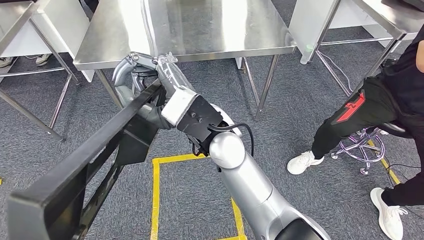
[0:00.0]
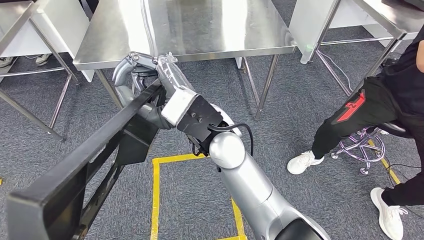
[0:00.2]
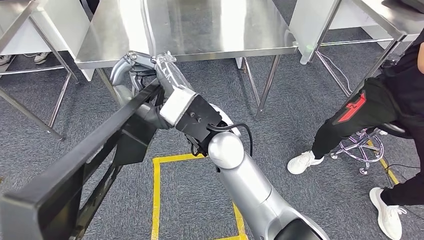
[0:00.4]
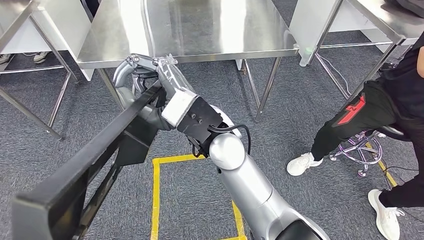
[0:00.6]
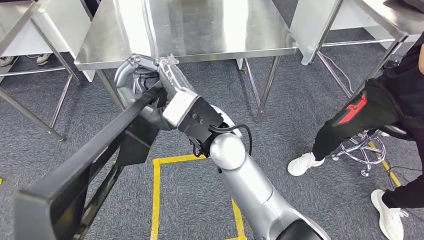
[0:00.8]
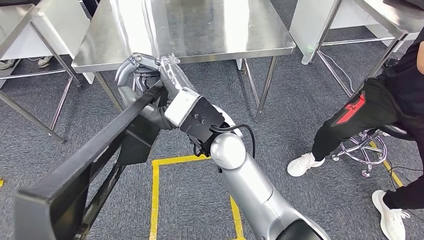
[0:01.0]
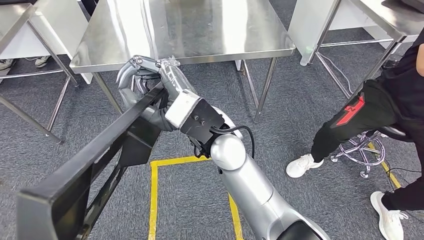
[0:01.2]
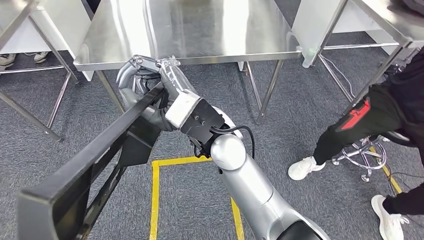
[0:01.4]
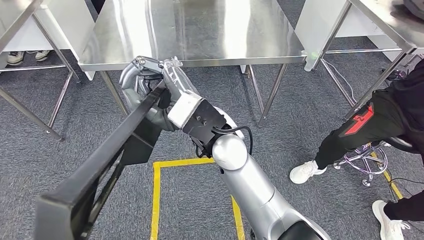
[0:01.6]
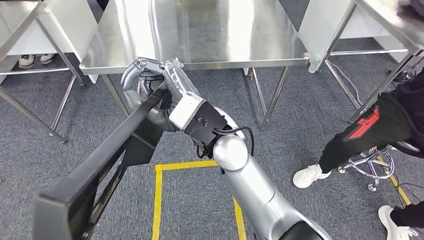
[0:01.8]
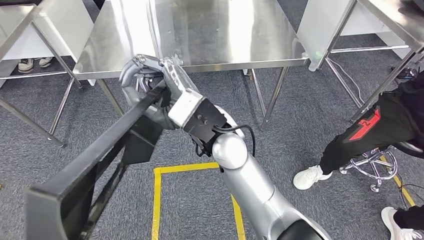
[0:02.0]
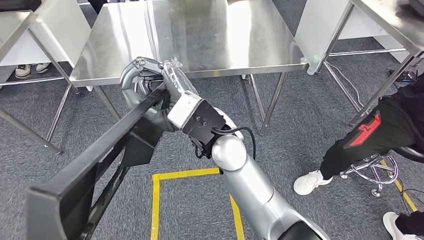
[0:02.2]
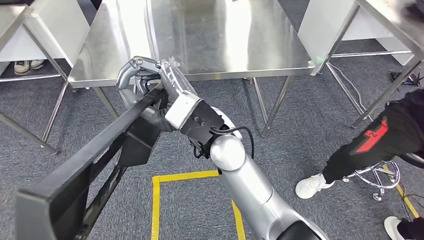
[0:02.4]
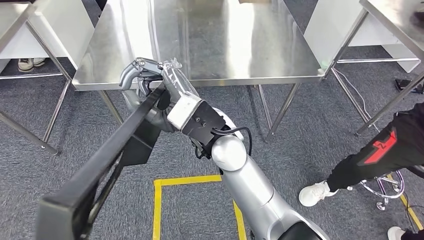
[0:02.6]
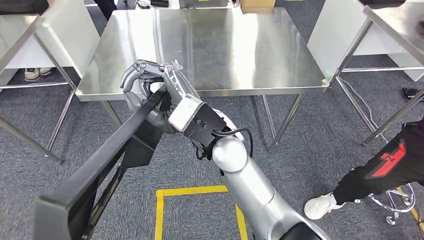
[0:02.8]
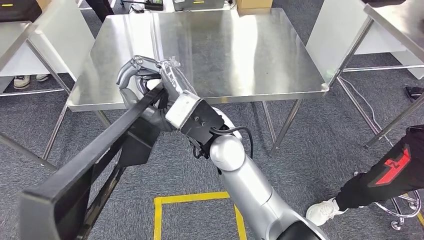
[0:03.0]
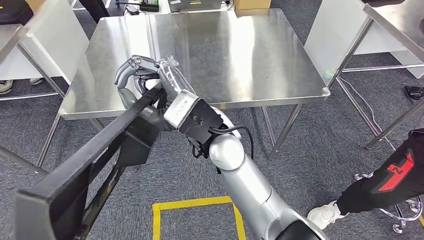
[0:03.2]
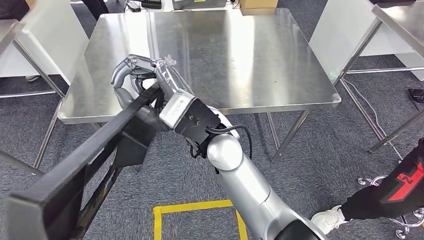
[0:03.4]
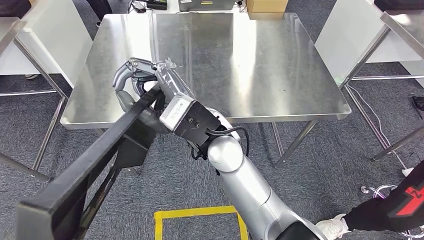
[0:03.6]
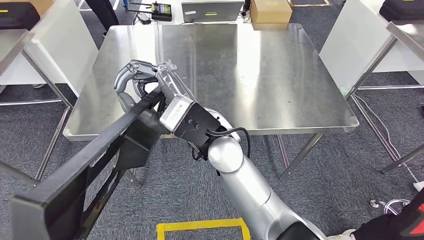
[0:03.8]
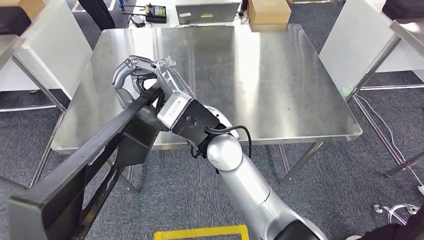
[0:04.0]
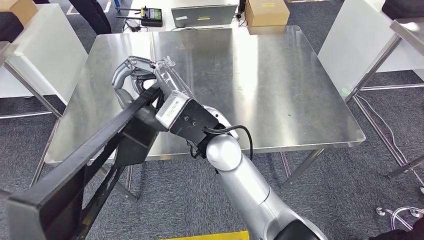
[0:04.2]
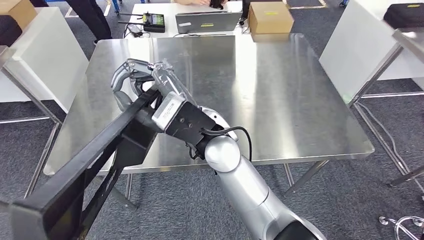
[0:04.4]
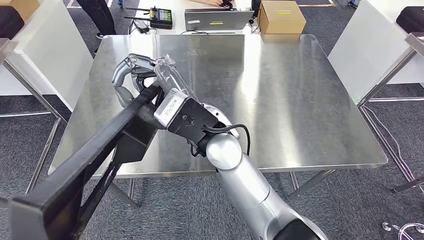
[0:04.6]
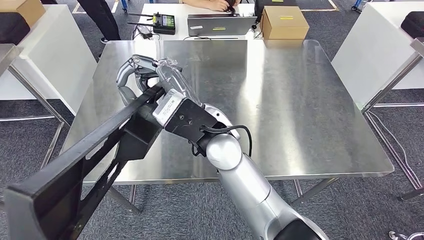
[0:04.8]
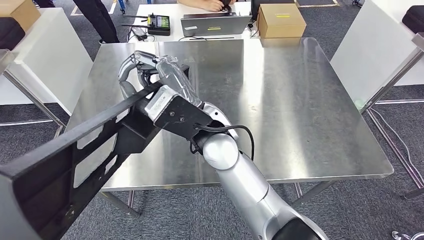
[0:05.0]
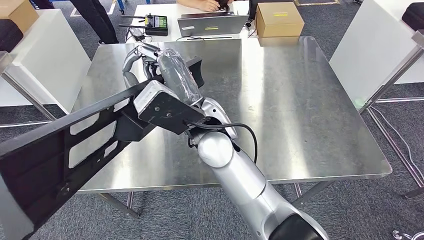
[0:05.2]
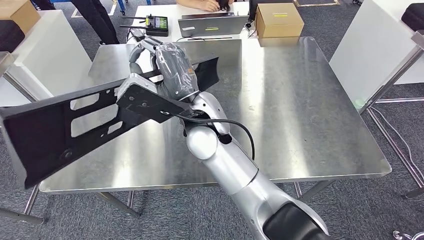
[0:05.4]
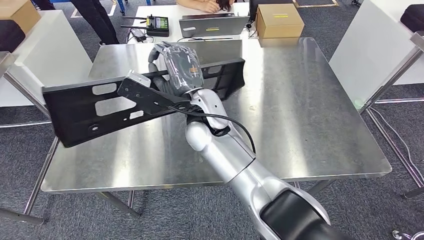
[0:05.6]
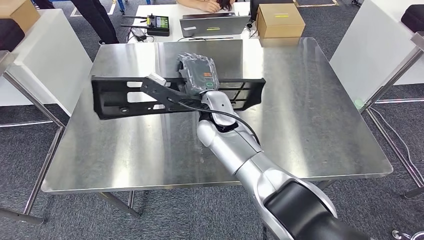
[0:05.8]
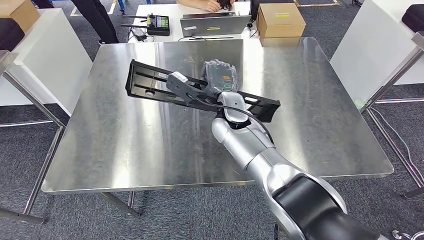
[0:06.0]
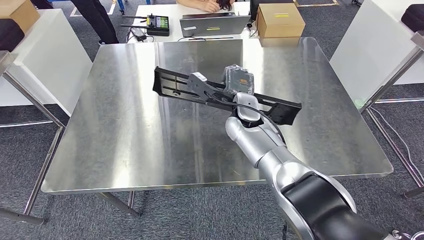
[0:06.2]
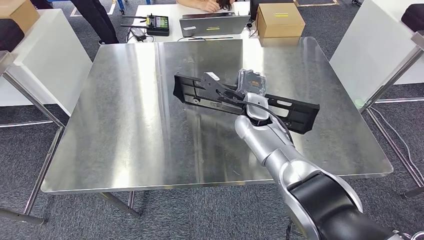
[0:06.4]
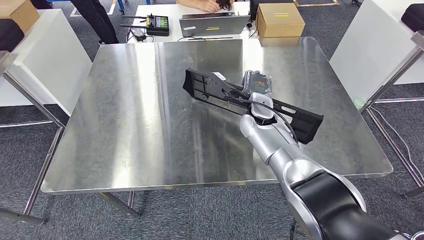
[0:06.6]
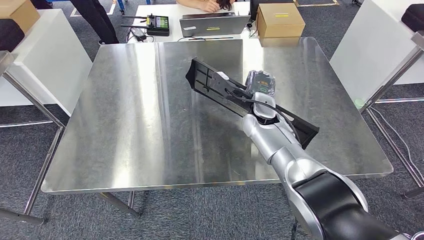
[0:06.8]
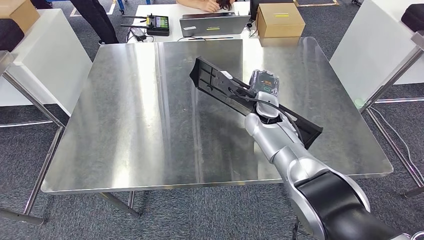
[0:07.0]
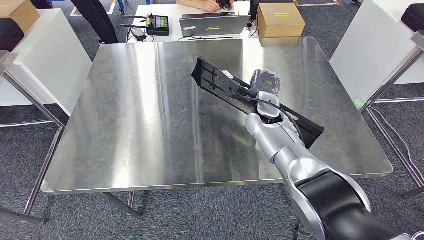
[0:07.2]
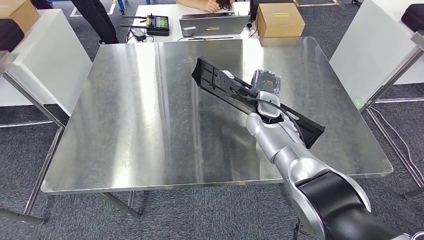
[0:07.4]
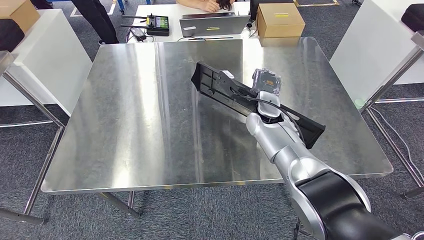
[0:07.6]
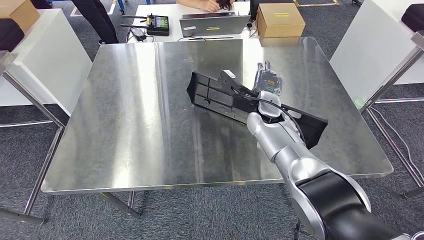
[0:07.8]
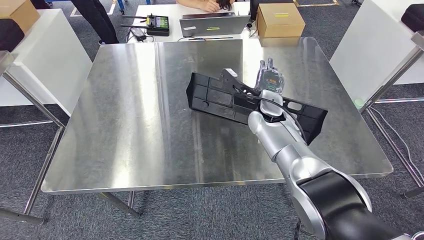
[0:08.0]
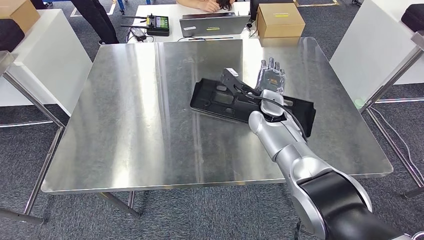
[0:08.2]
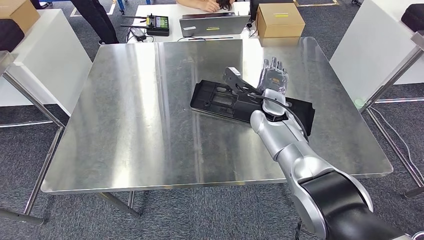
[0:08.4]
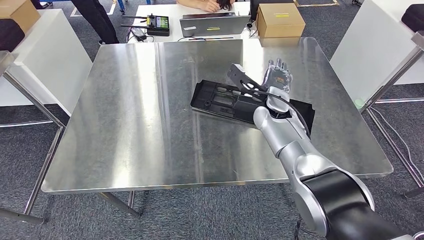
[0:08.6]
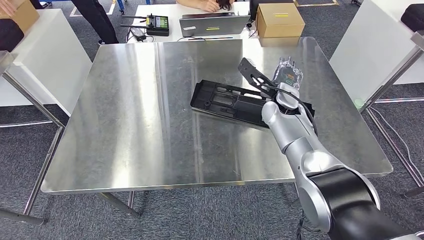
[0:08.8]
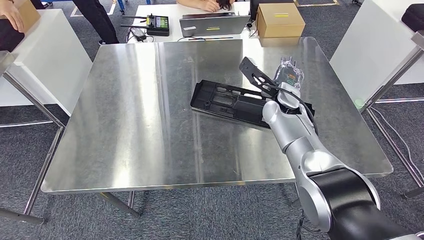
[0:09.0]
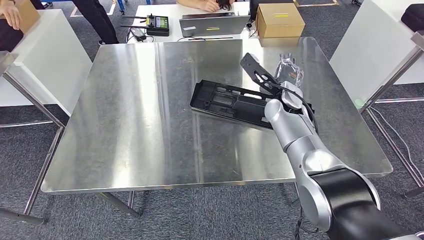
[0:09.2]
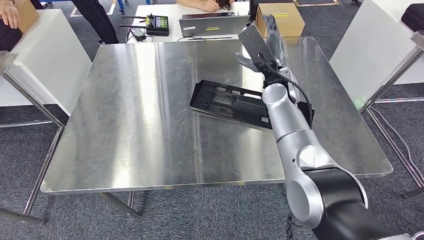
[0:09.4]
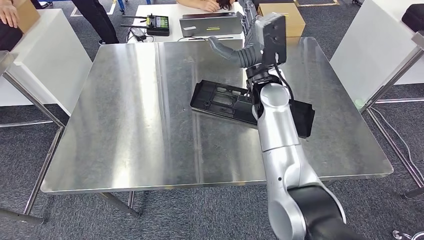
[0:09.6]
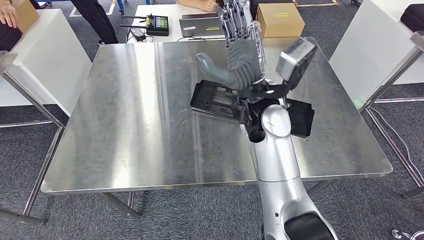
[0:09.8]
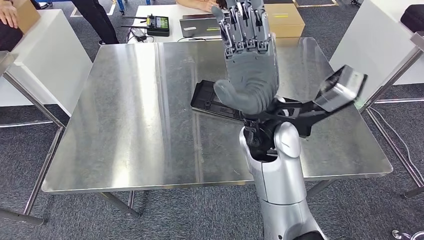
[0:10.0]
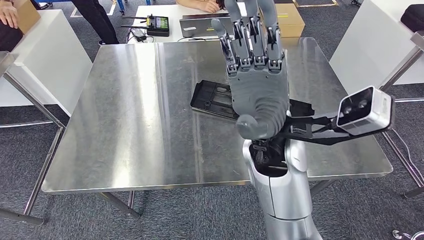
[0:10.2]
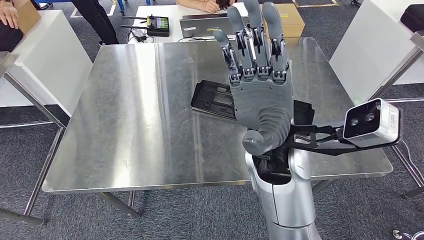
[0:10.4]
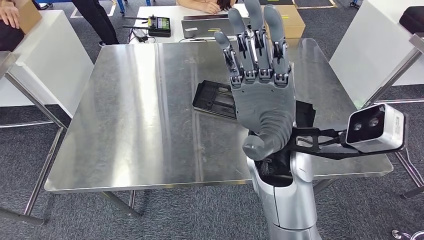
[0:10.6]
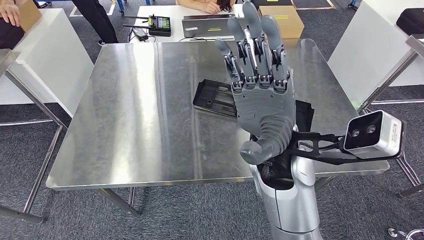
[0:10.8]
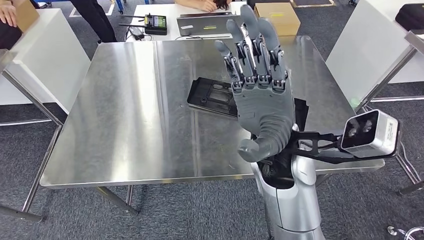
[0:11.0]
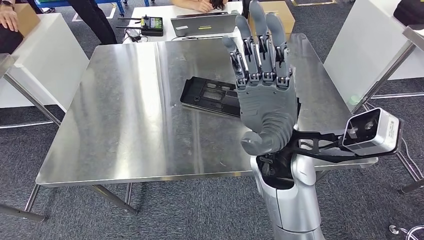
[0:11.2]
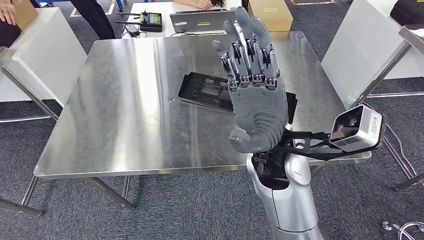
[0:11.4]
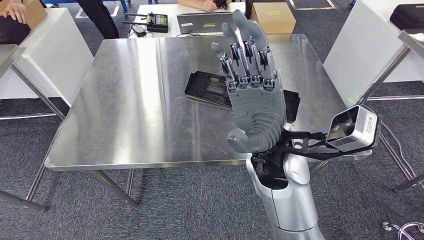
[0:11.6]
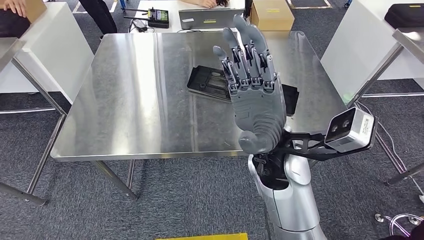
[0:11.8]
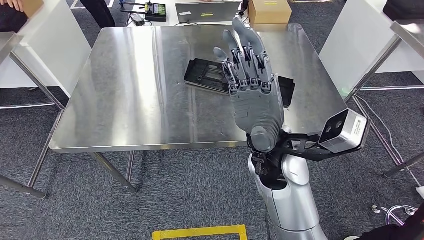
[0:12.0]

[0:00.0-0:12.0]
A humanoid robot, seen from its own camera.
0:06.0 to 0:07.6: The right hand travels to the right by about 10 cm.
0:07.6 to 0:09.0: There are only small adjustments of the hands.

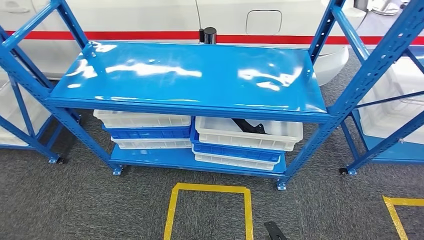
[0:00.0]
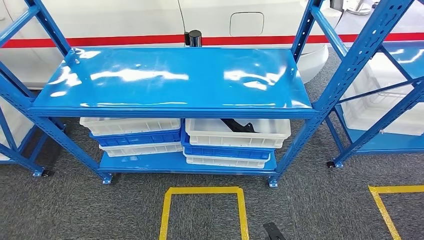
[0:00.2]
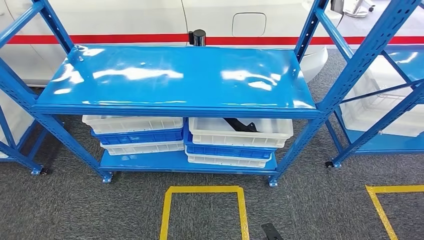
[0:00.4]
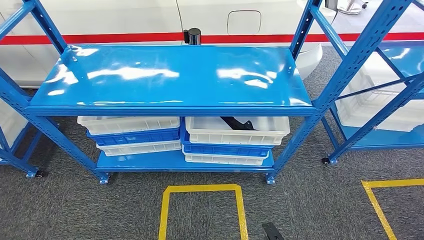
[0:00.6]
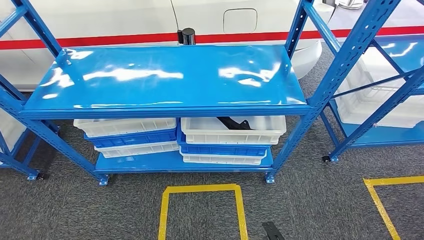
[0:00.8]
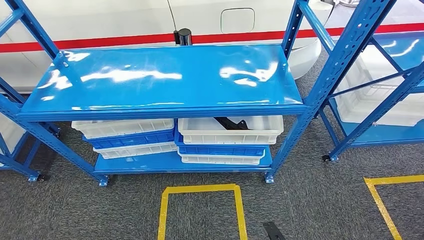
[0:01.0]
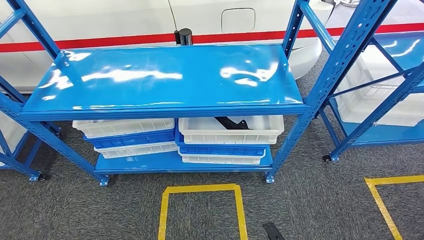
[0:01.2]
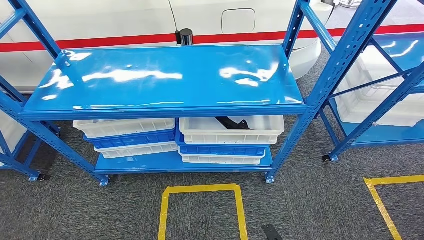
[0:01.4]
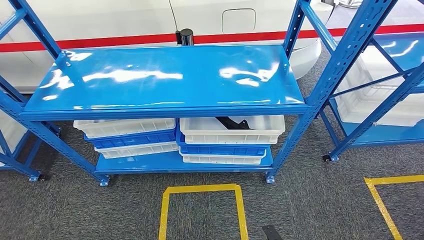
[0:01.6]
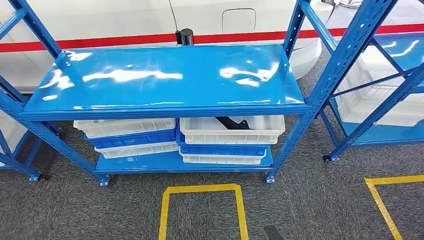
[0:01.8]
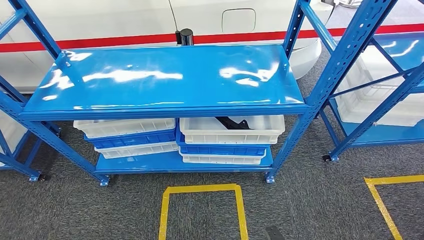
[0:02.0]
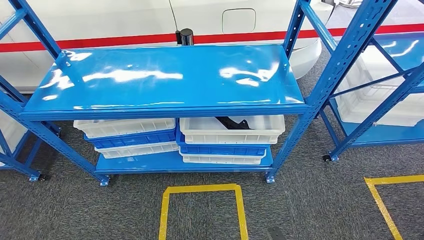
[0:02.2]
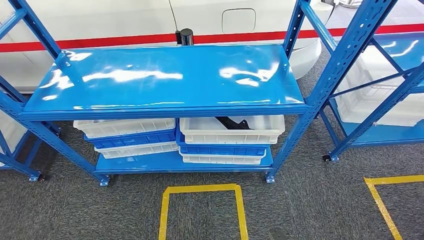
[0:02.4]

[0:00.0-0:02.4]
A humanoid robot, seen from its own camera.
Step, 0:00.0 to 0:02.4: Move to the initial position of the shelf.
0:01.2 to 0:02.4: The hands stay close to where they were, moving slightly.
